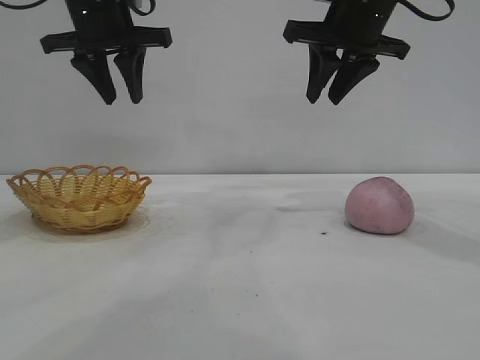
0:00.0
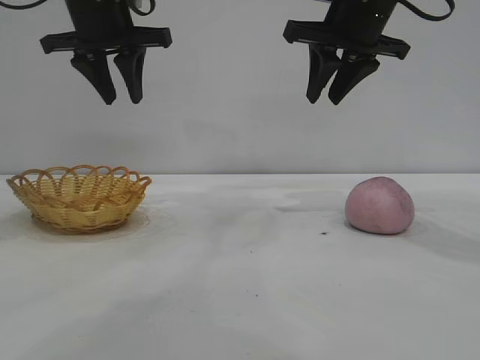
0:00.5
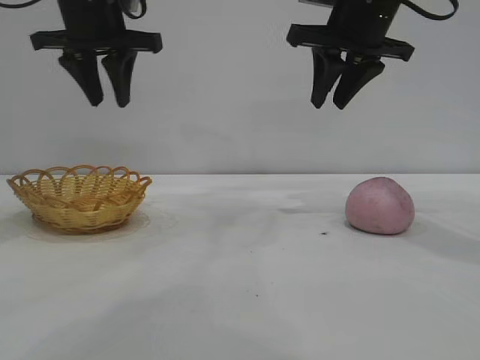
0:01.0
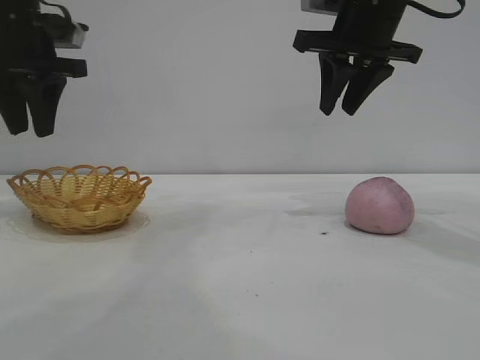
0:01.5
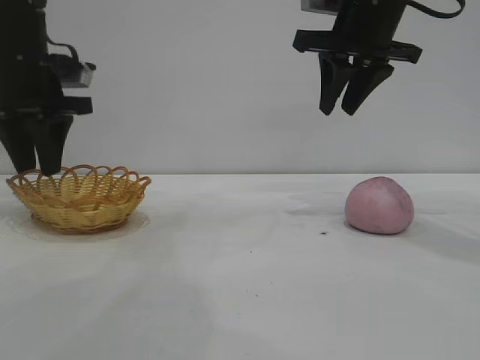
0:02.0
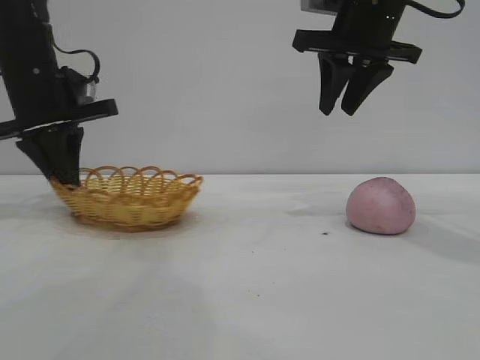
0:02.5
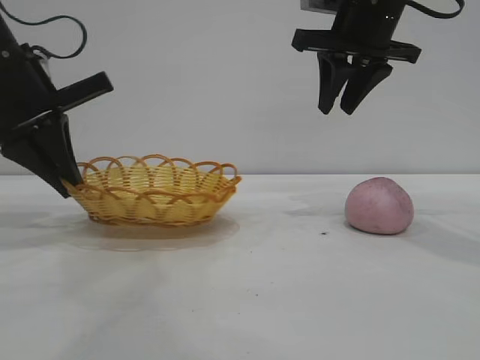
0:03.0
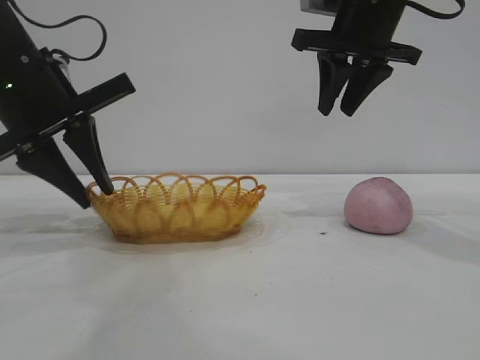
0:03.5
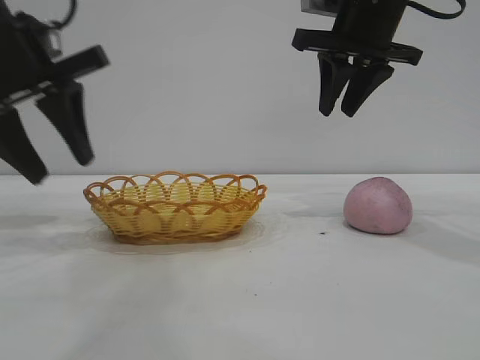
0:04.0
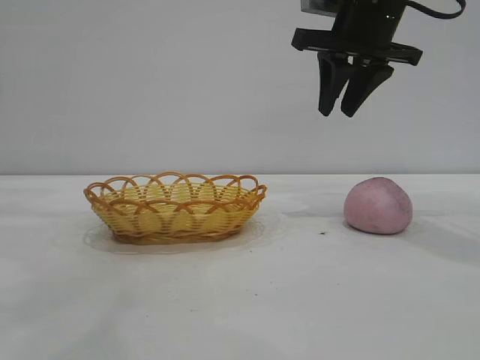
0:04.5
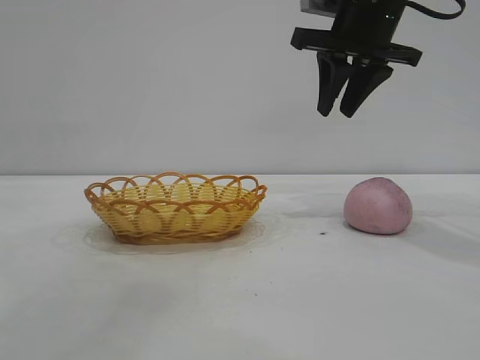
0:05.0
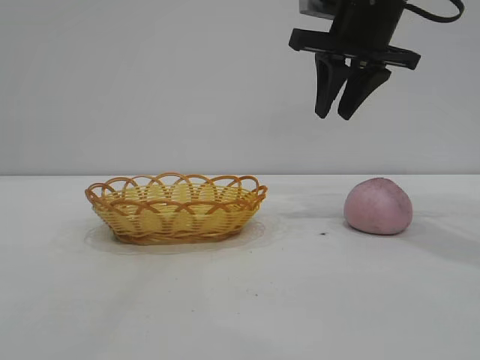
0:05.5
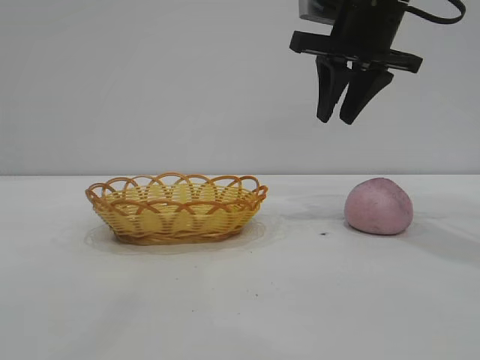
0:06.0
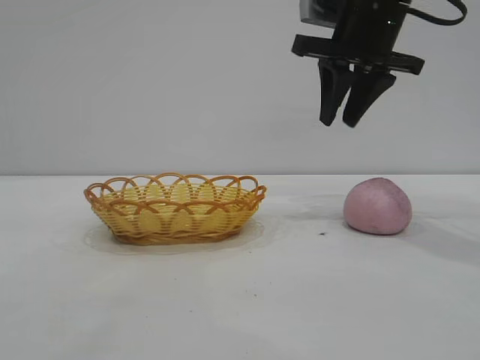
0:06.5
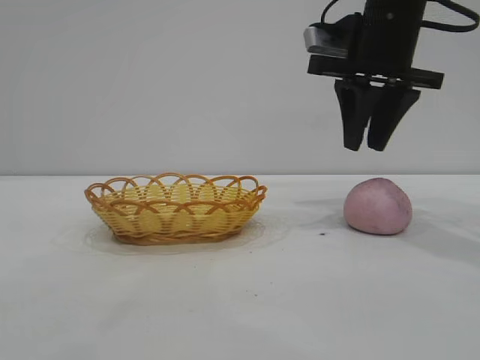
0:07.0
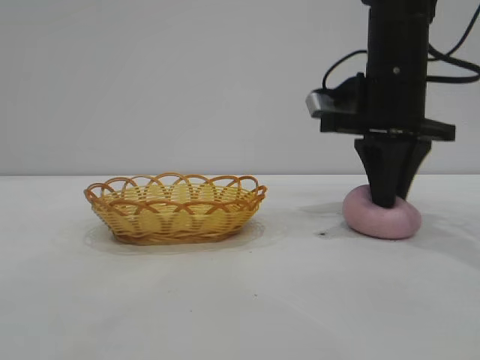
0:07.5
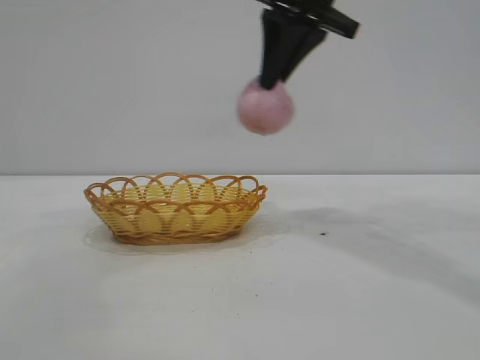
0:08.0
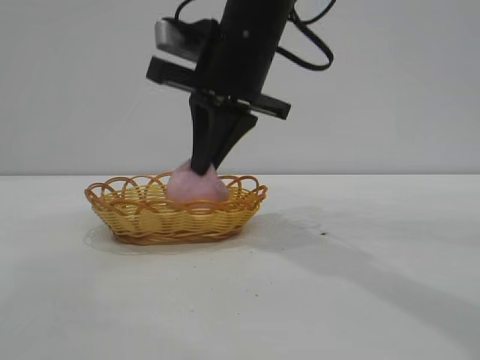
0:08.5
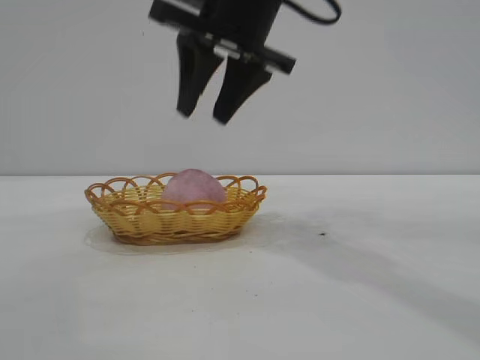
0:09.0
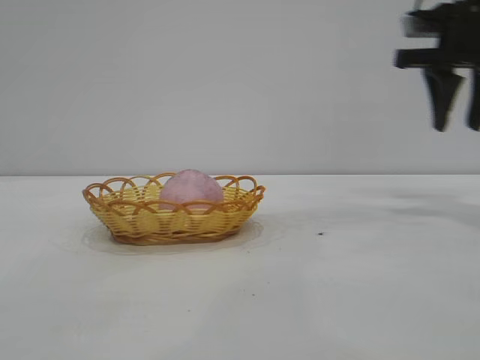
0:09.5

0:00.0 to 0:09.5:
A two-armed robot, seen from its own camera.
Task of the whole recording: pick up the peach and put it into the basket.
Step, 0:00.0 to 0:03.5: Move the basket to the center of view.
Step, 0:04.0 to 0:07.5: Pick up the peach.
Step, 0:08.0 to 0:09.0: place the peach into the basket.

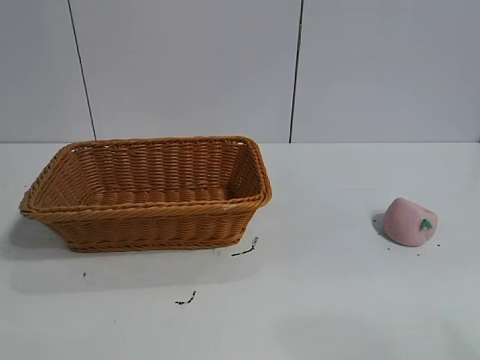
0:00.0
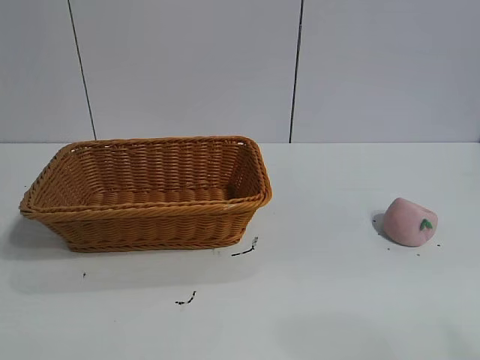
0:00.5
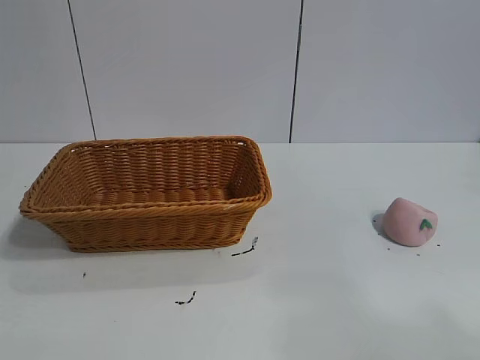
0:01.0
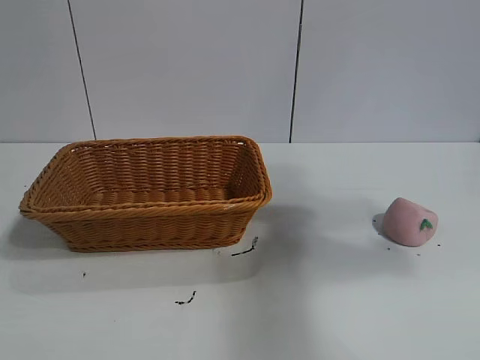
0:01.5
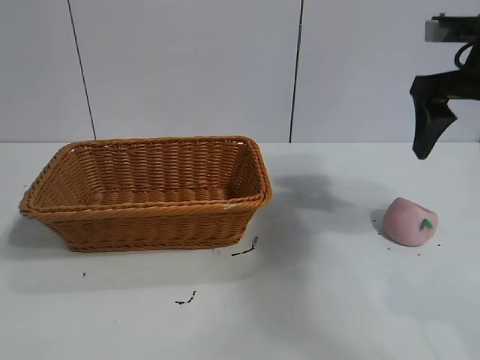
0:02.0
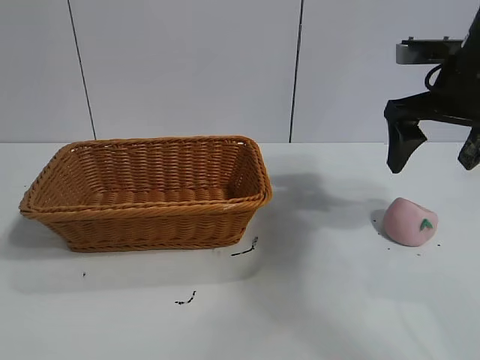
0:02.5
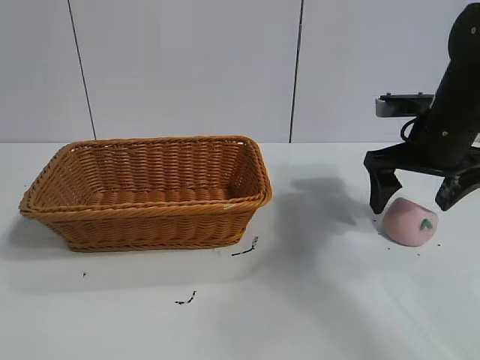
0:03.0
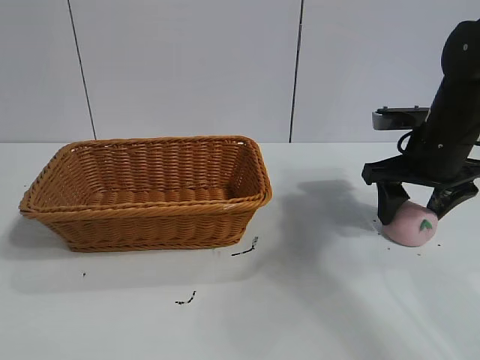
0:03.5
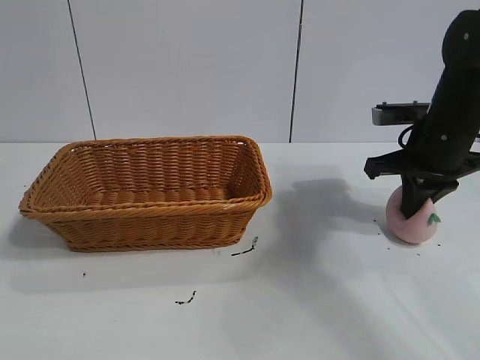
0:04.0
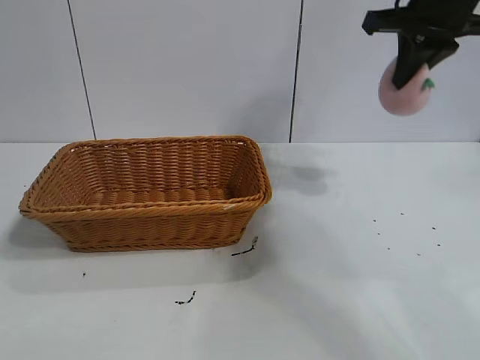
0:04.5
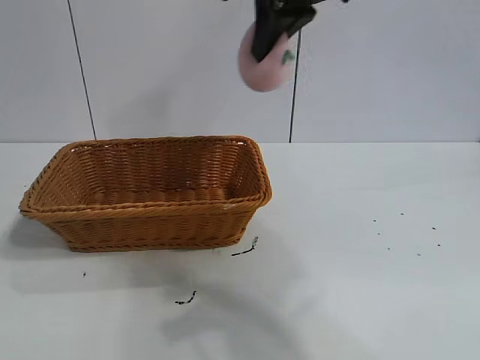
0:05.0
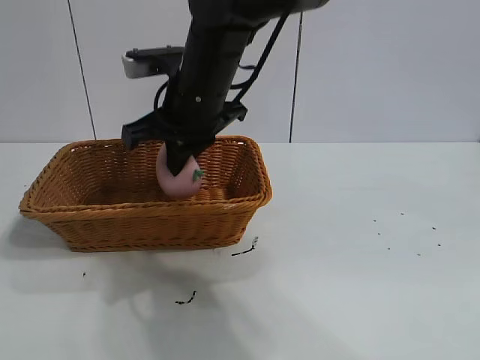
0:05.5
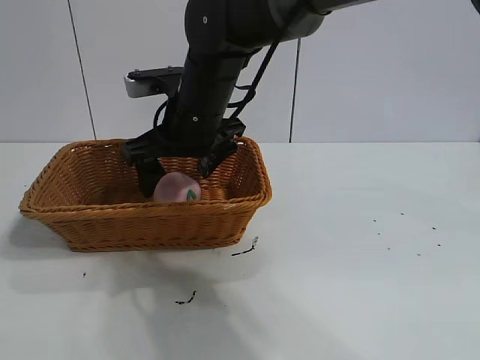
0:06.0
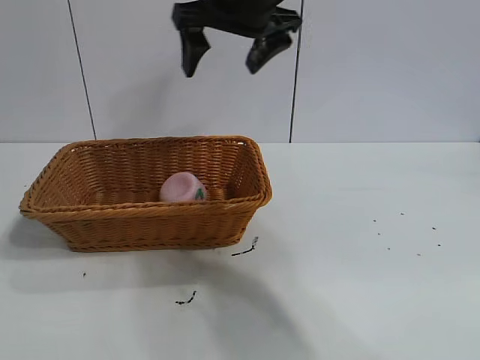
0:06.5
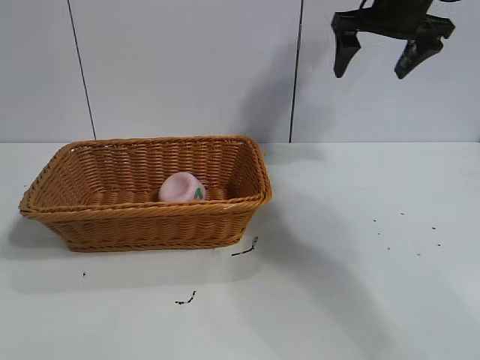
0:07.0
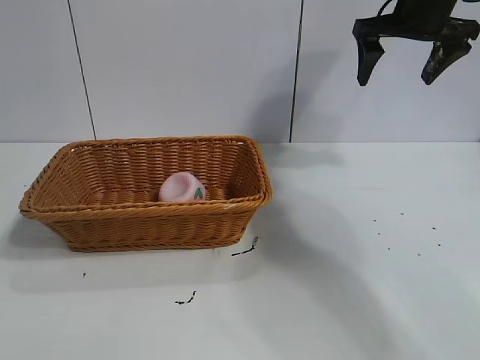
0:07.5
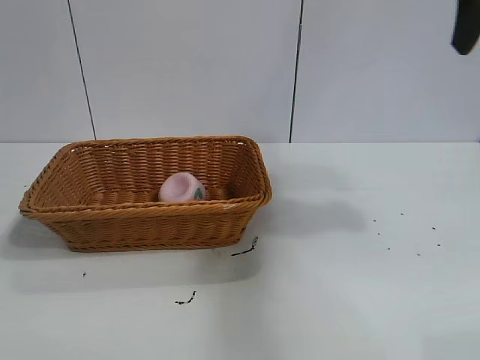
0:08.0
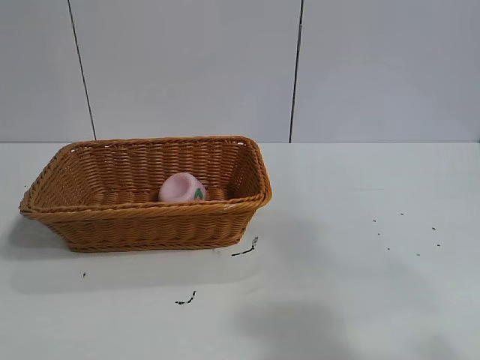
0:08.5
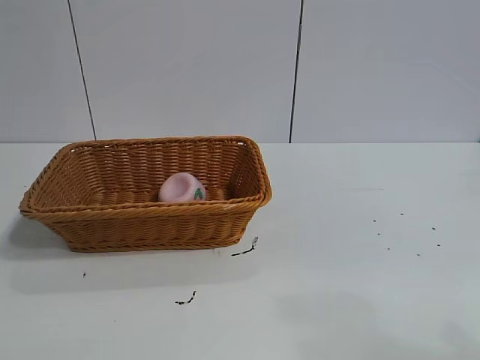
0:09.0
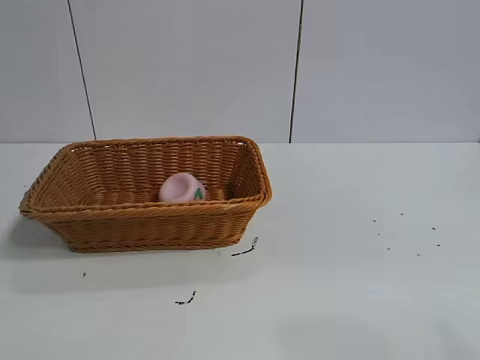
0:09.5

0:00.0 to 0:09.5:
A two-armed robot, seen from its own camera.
Task of the whole recording: pick up the peach and put it into the basket.
Step, 0:01.0 to 0:04.0: Grasp the peach with right gripper.
Step, 0:04.5 to 0:06.0: Place the peach in the basket with right gripper.
